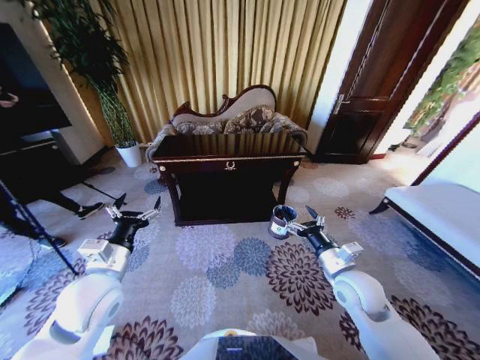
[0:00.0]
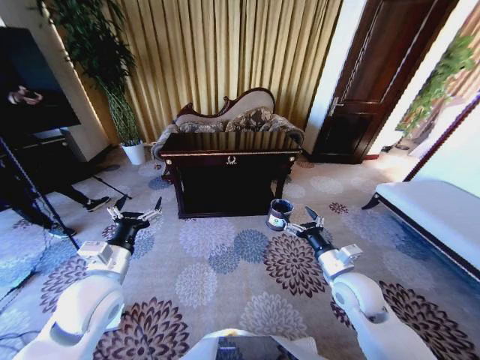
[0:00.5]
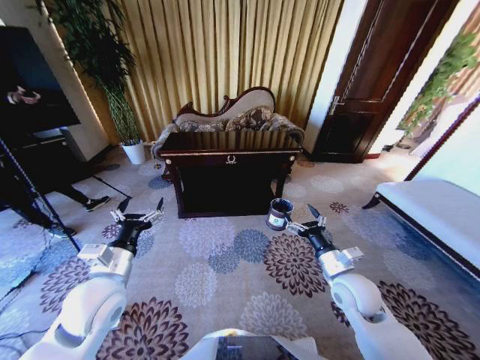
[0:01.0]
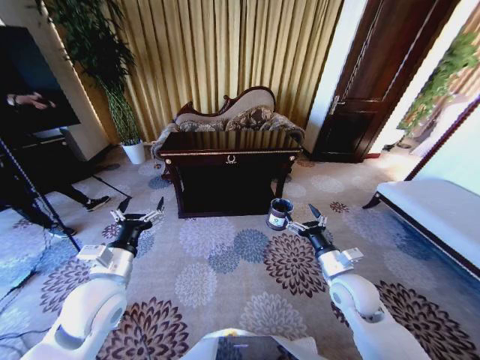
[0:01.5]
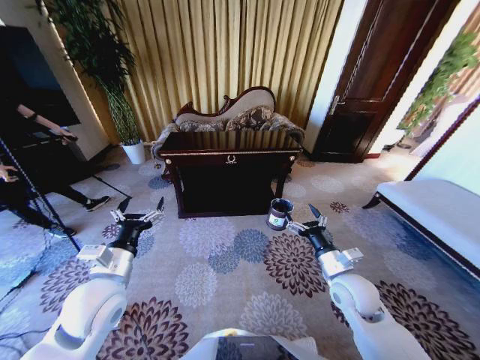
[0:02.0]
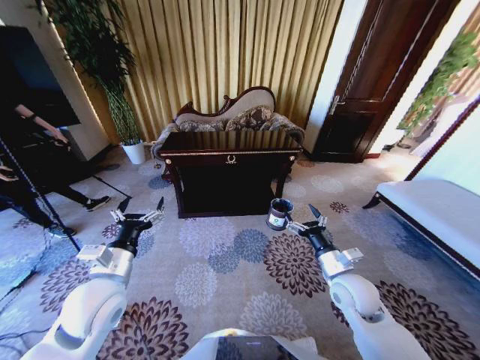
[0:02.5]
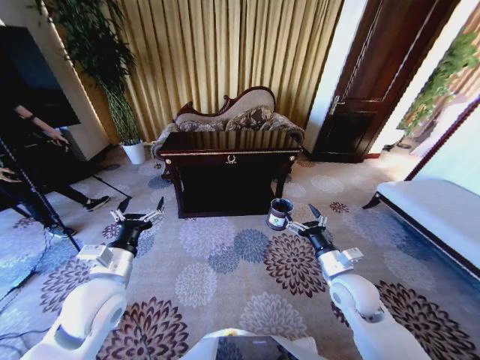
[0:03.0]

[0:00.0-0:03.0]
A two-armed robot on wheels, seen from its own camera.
Task of the whole recording: Move to the front of the table and place the trash on the table into the trash bin.
0:01.5 to 0:03.0: Both grippers stay about where they are.

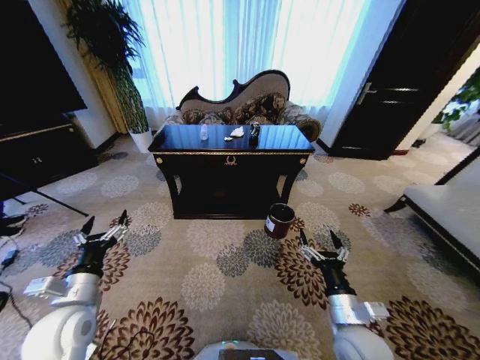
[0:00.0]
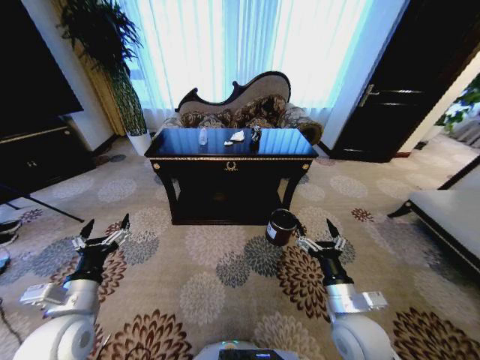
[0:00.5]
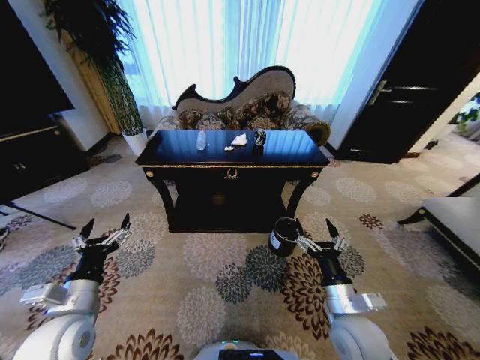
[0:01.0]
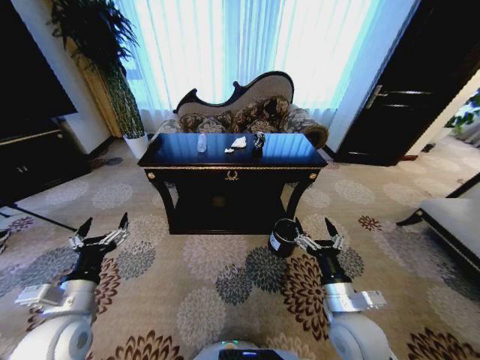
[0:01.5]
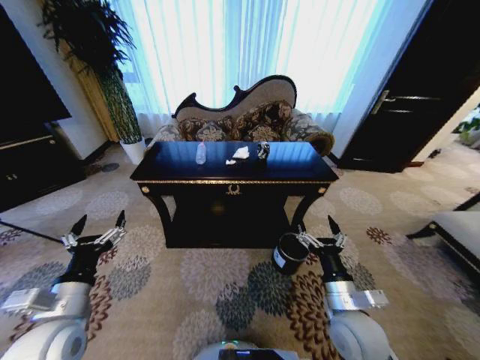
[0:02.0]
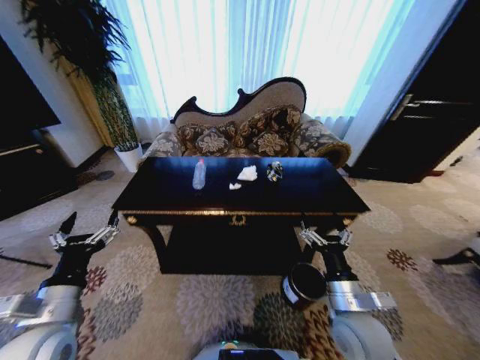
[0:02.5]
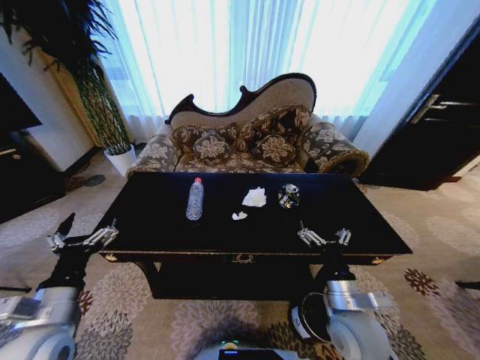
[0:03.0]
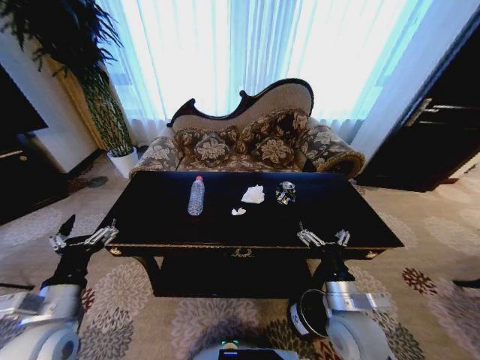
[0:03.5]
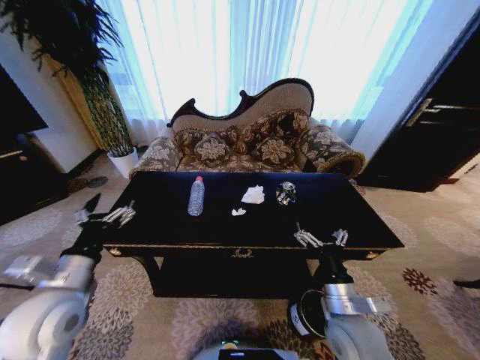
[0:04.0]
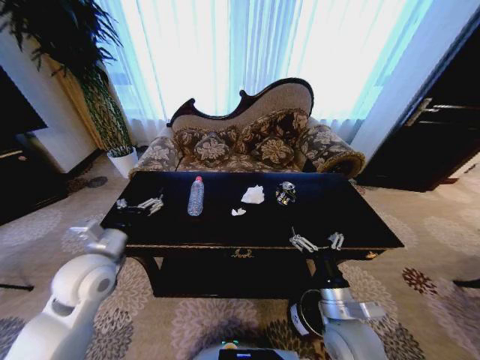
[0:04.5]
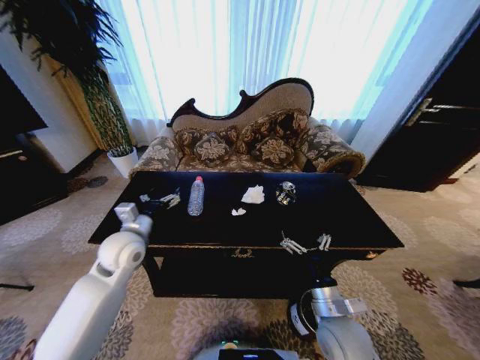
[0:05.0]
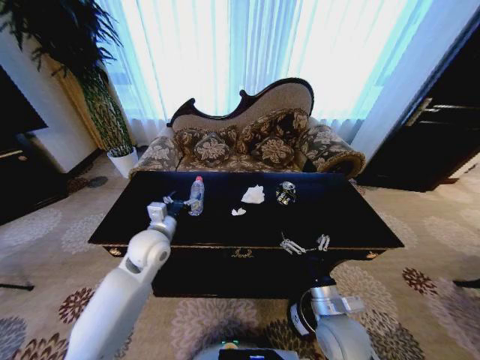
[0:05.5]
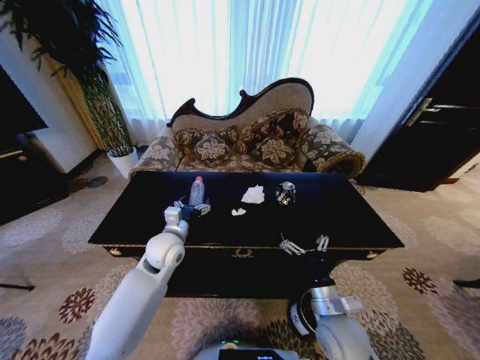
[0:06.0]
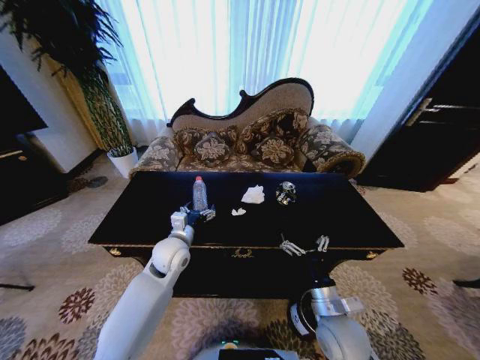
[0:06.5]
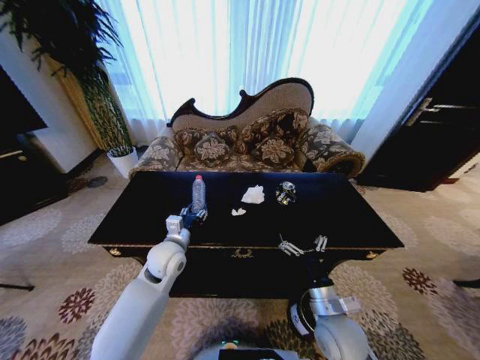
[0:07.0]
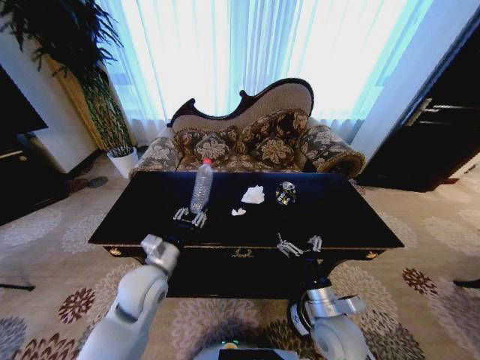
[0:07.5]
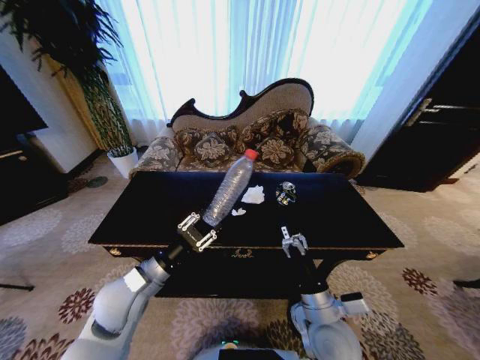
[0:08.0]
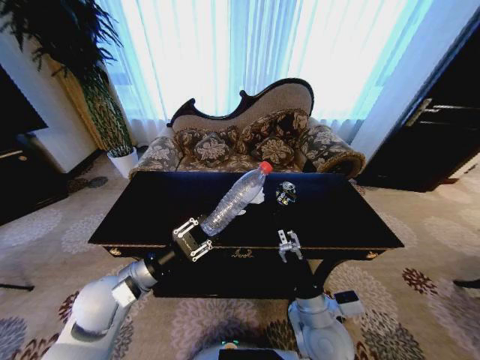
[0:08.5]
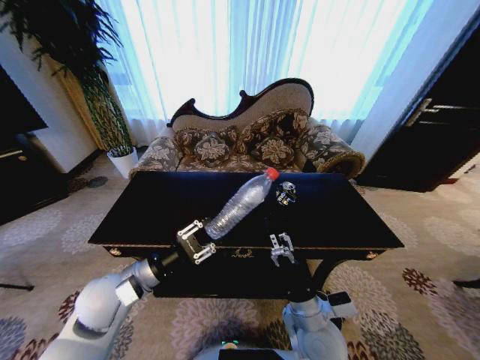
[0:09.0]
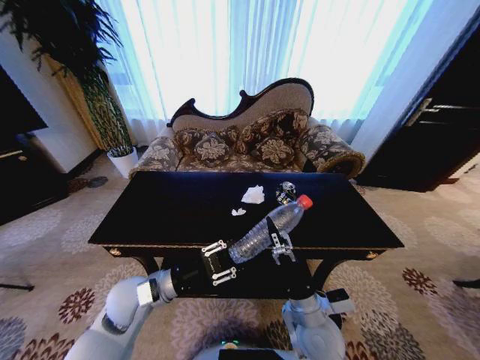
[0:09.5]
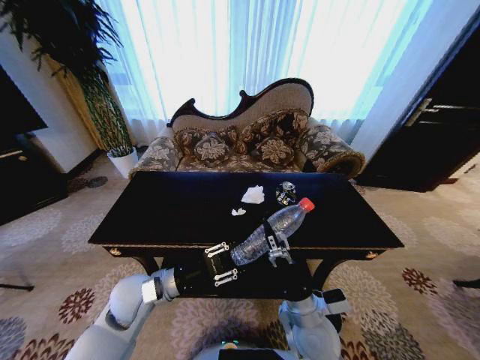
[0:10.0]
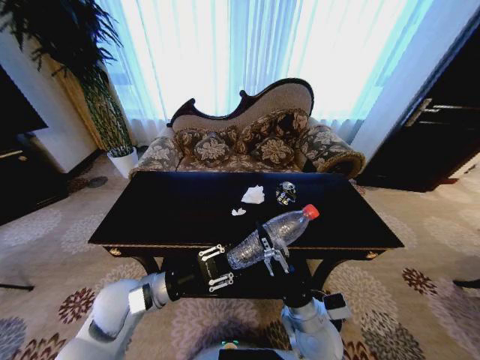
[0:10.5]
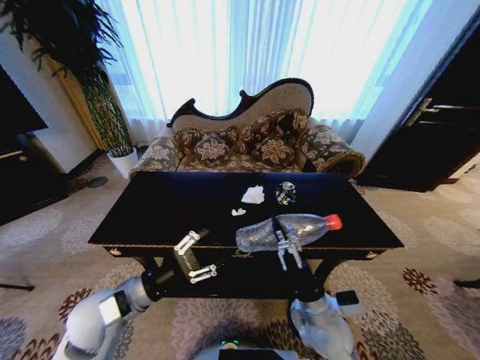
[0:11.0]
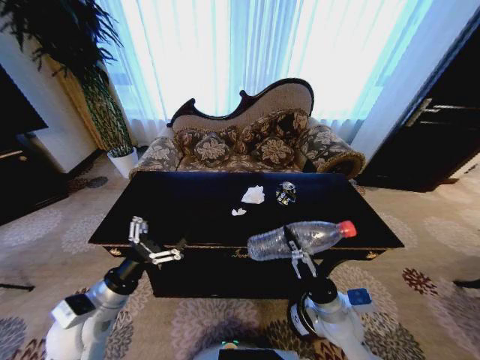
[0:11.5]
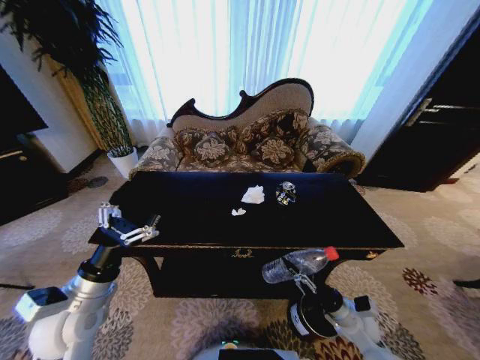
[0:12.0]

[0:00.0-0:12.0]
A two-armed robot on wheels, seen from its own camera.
Task of the whole recording: Move to the front of the table and place the trash on the table into the trash bin.
0:04.0 to 0:06.0: The left gripper moves forward and to the right, some 20 cm.
0:06.0 to 0:08.0: The left gripper goes about 15 cm backward and to the left, and closes up.
0:10.0 to 0:12.0: The right gripper is displaced to the right and downward by about 25 cm, and closes its fingers. Meanwhile the left gripper is displaced to the left and backward by roughly 10 cm, and opens.

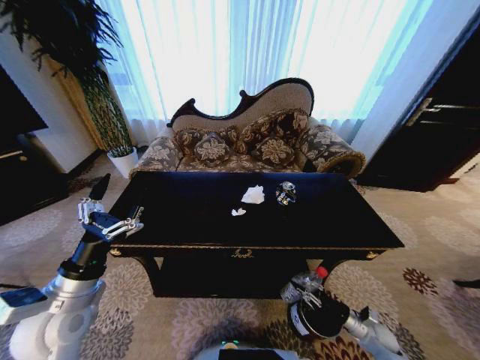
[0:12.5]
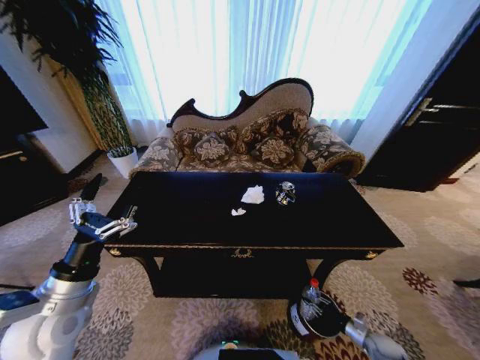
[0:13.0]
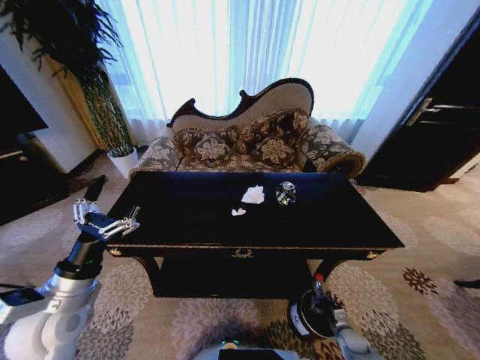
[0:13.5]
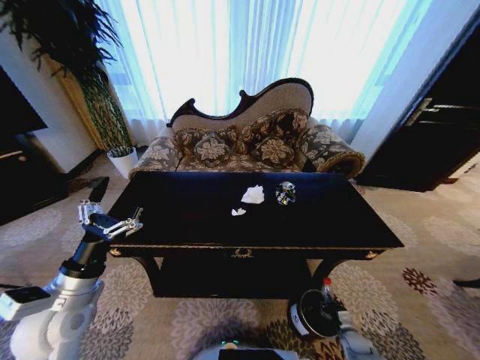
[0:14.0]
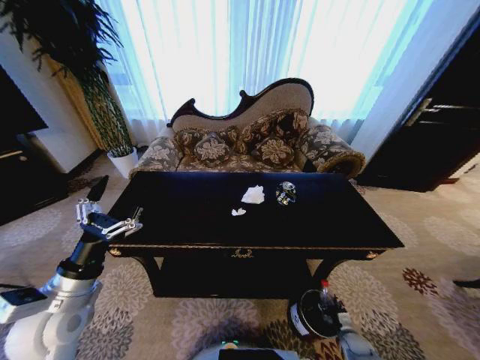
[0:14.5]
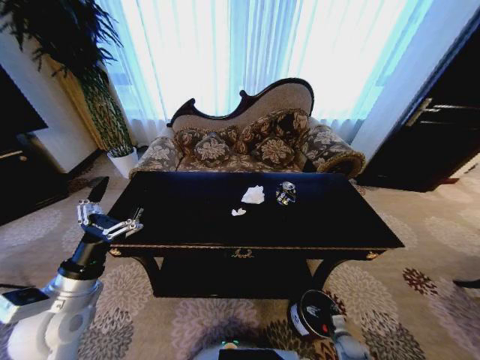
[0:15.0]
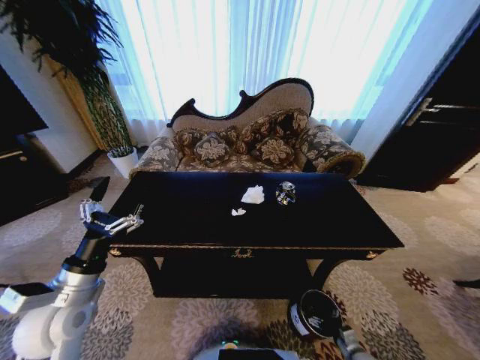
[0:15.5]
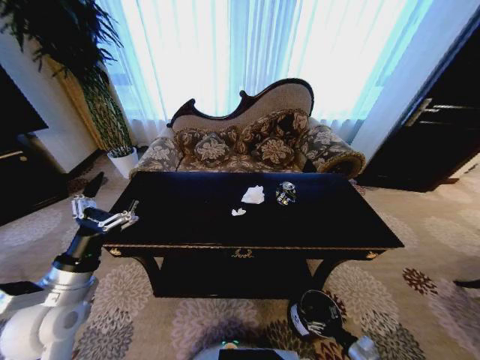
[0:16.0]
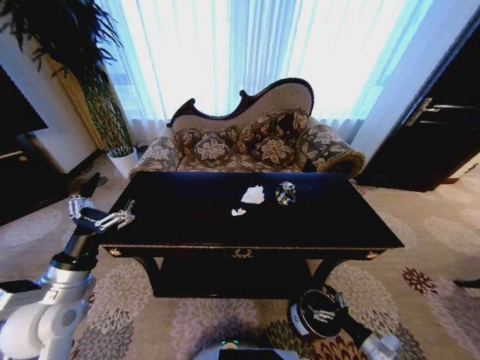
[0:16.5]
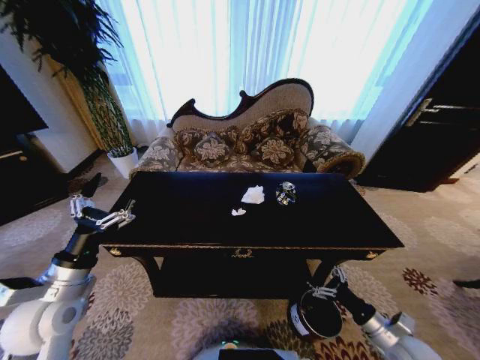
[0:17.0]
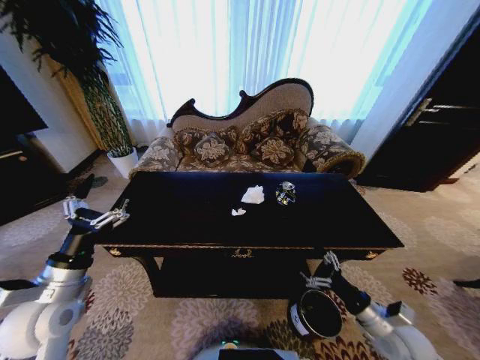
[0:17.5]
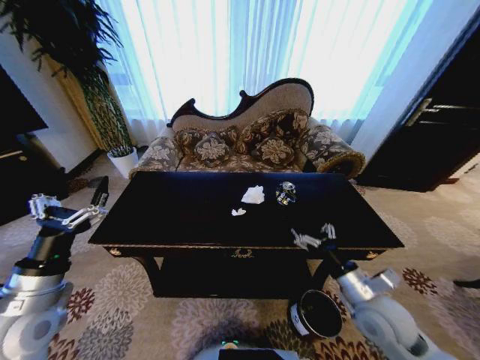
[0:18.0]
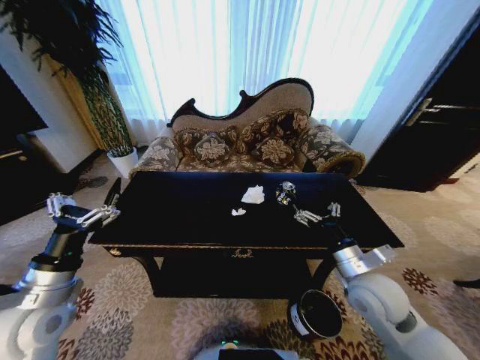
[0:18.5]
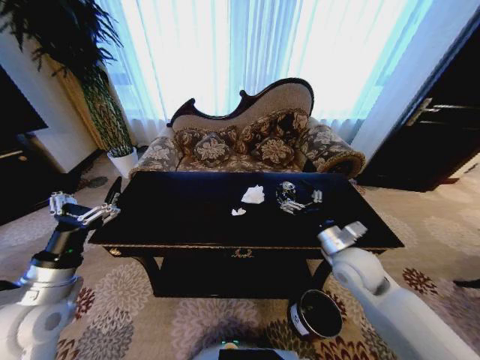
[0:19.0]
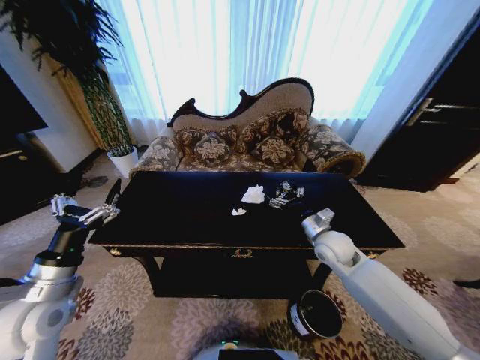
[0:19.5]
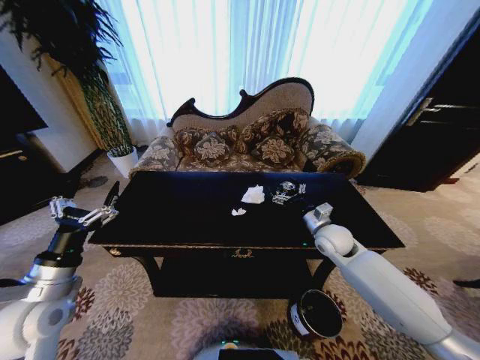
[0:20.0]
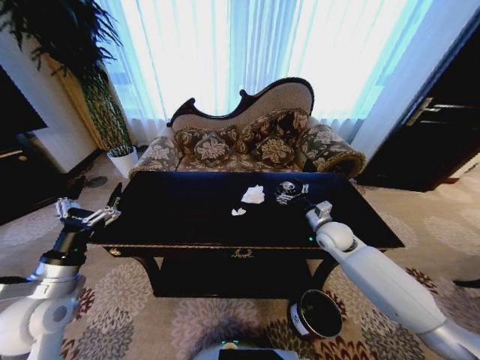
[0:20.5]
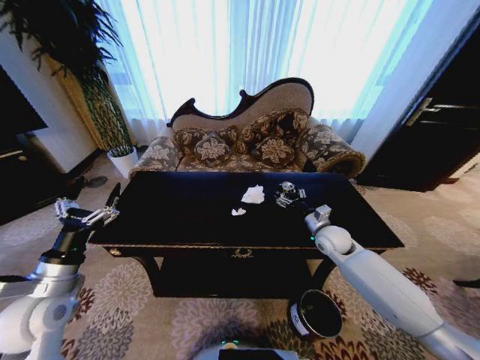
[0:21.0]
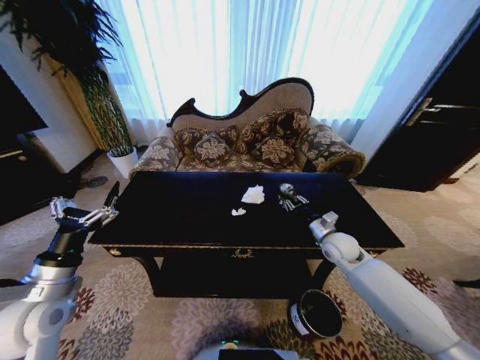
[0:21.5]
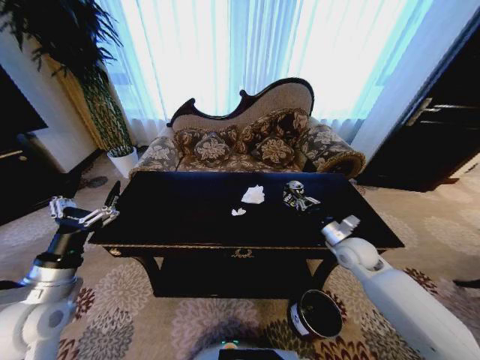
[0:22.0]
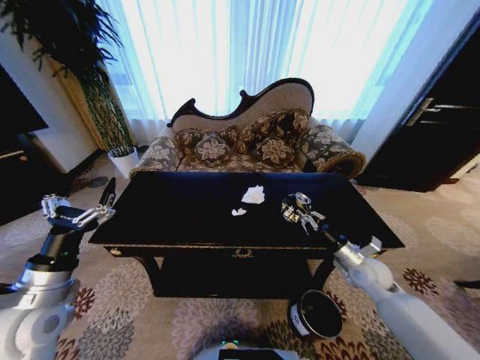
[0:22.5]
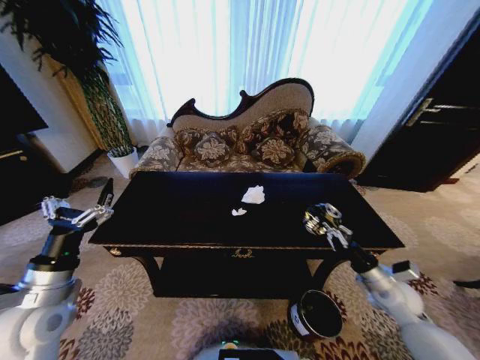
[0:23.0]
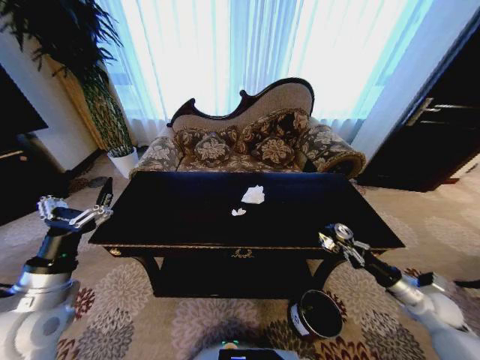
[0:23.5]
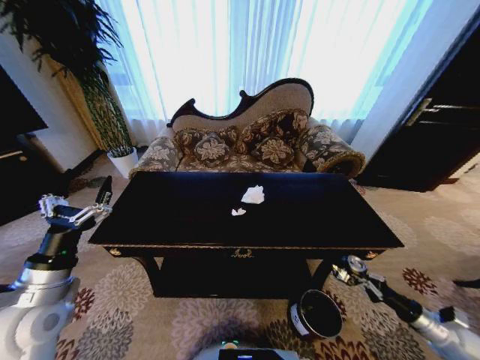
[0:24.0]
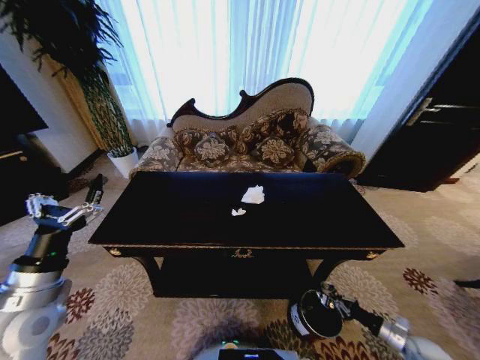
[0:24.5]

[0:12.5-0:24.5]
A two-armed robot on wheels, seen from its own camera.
Task of the whole recording: Move to the front of the table and place the trash on the table into the trash bin.
0:12.5 to 0:14.5: The right gripper travels downward by some 10 cm, and opens.
0:14.5 to 0:16.5: The right gripper moves upward and backward, some 20 cm, and opens its fingers.
0:16.5 to 0:18.5: The right gripper is displaced upward, to the left and forward by roughly 30 cm.
0:18.5 to 0:20.5: The right gripper shifts roughly 20 cm forward.
0:20.5 to 0:22.5: The right gripper heads backward and to the right, covering approximately 15 cm, and closes up.
0:22.5 to 0:24.5: The right gripper is displaced downward, to the right and backward by approximately 30 cm.
